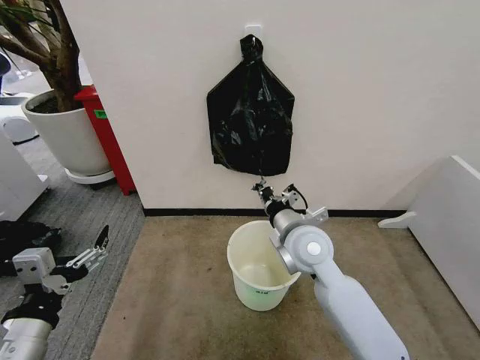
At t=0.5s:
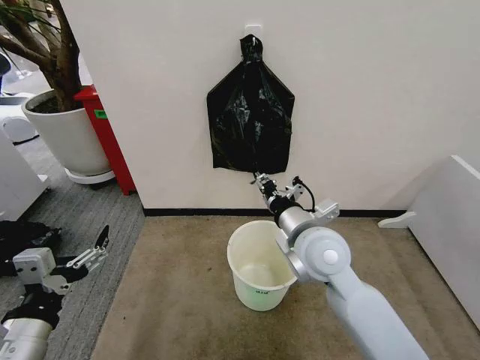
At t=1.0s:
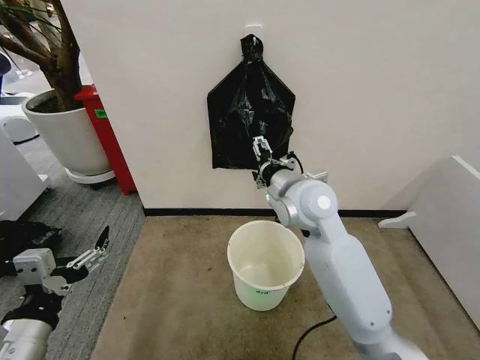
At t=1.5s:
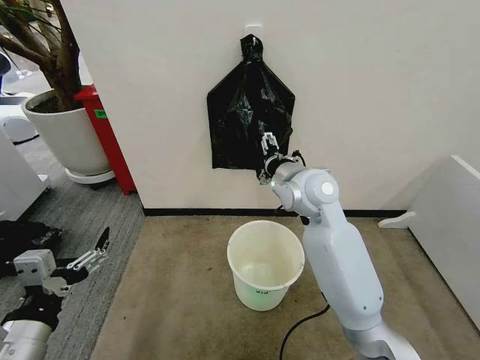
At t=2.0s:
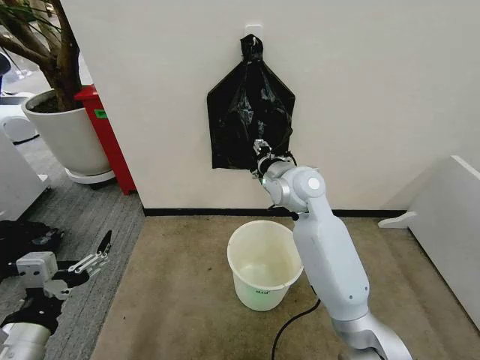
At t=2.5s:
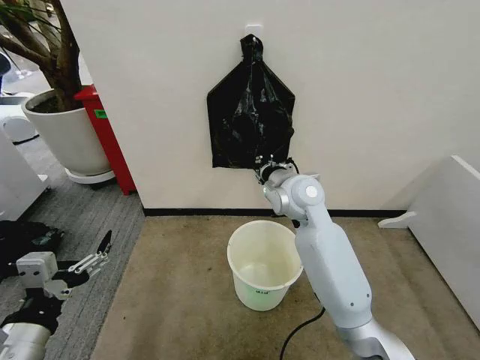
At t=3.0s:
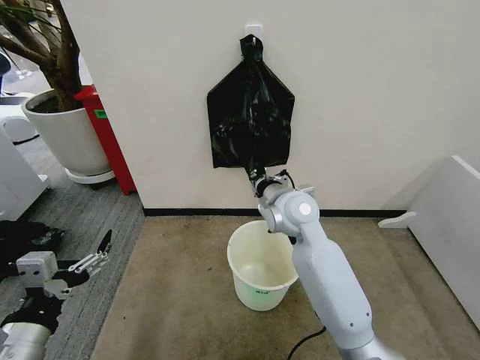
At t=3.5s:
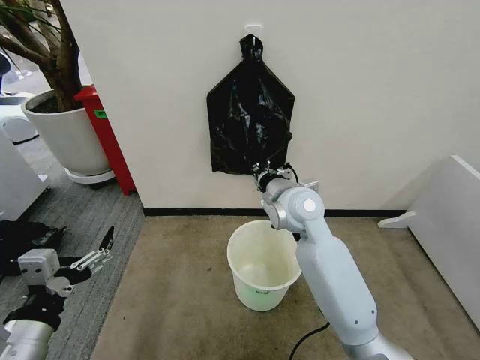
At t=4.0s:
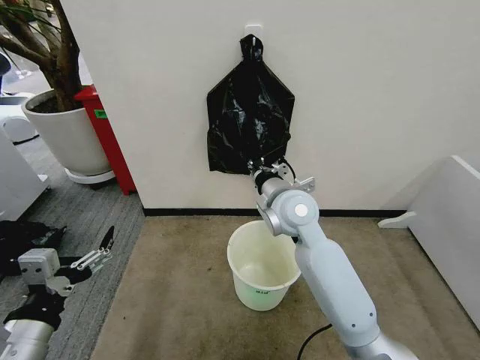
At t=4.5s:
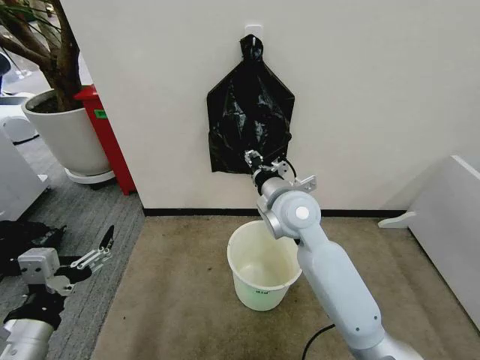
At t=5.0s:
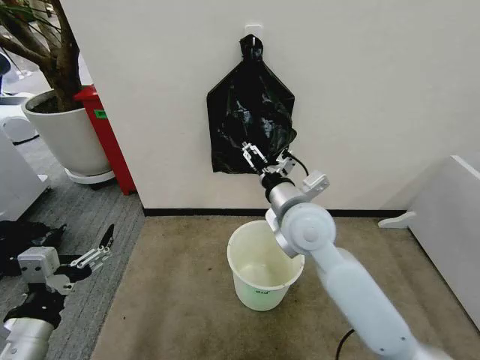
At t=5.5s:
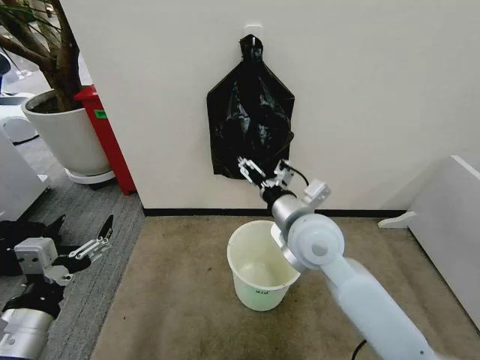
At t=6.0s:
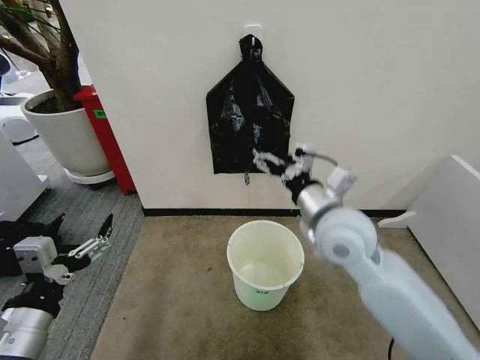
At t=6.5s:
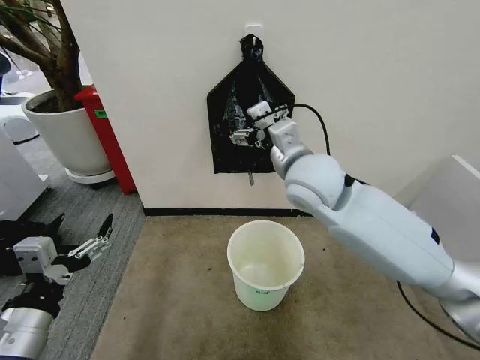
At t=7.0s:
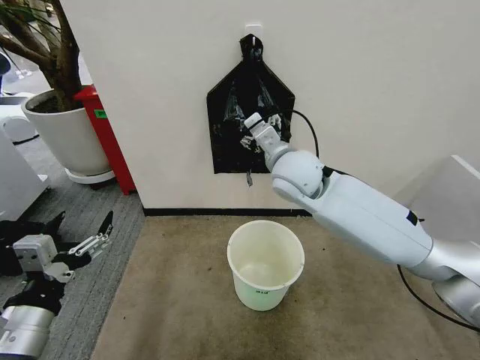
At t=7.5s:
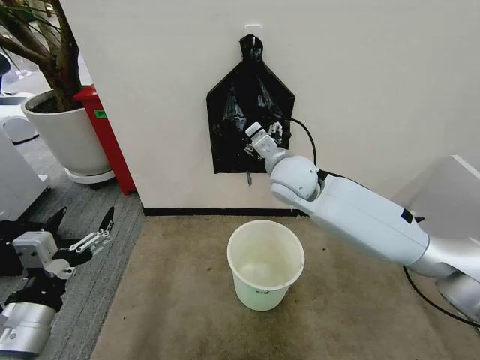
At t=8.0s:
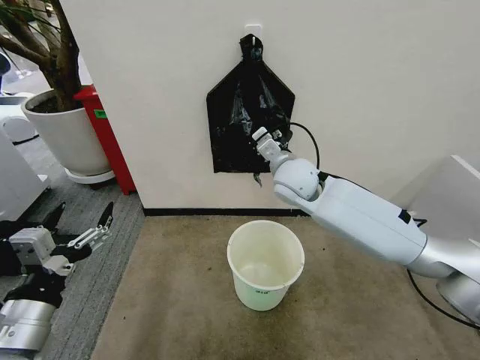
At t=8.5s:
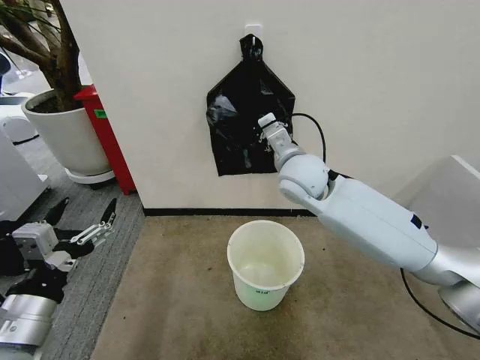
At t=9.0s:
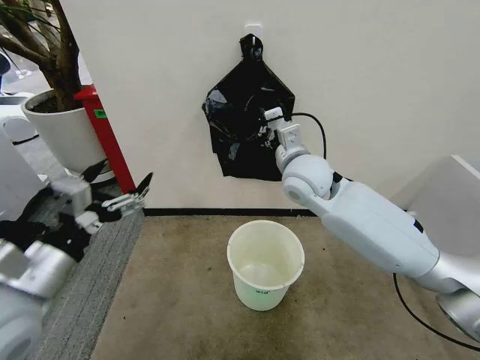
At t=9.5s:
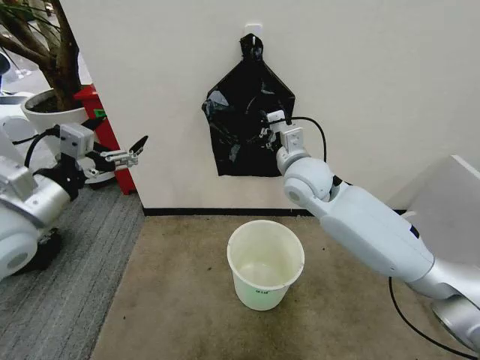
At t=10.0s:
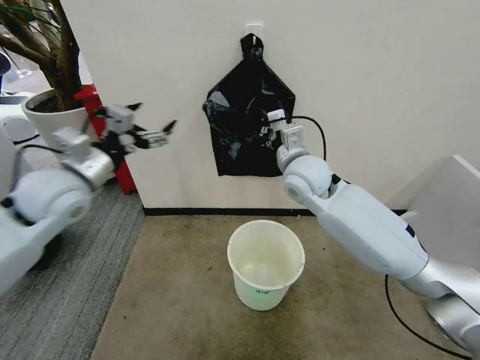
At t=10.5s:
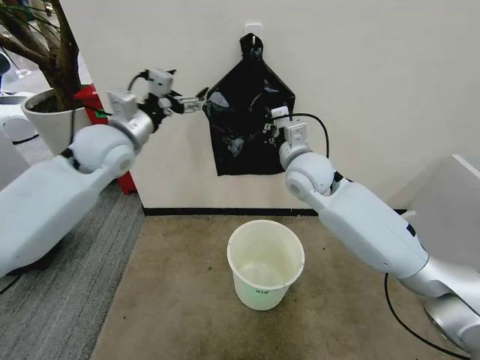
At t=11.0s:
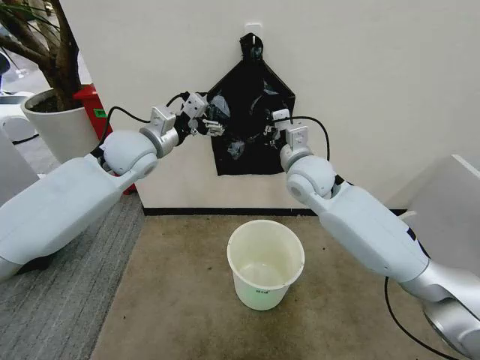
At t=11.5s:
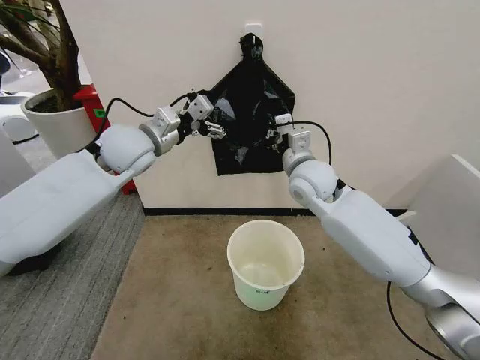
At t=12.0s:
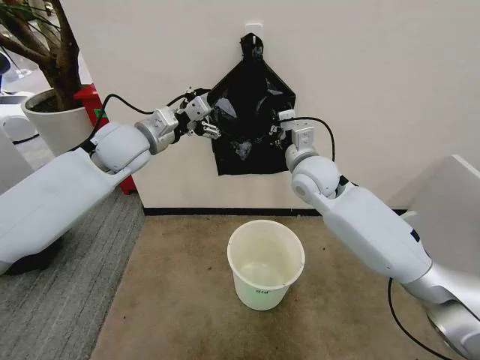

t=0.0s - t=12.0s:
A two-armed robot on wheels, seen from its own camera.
Task of the whole recording: Place the garbage bag over the trash bin.
t=0.0s - t=2.0s: The right gripper travels forward and upward by roughly 10 cm, and opens its fingers.
t=2.0s - t=4.0s: The right gripper changes place by about 5 cm, and closes.
t=4.0s - t=6.0s: The right gripper travels to the right and backward by some 10 cm, and opens.
t=6.0s - t=8.0s: The right gripper shifts some 15 cm forward and to the left, and closes up.
t=8.0s - t=10.0s: The left gripper heads forward, covering approximately 25 cm.
t=10.0s - t=12.0s: The left gripper goes roughly 15 cm forward and to the right.

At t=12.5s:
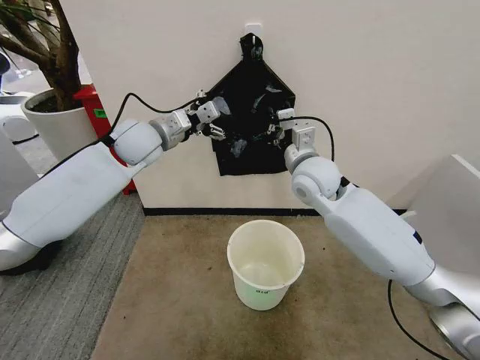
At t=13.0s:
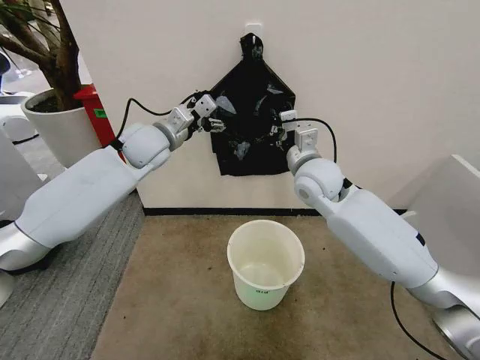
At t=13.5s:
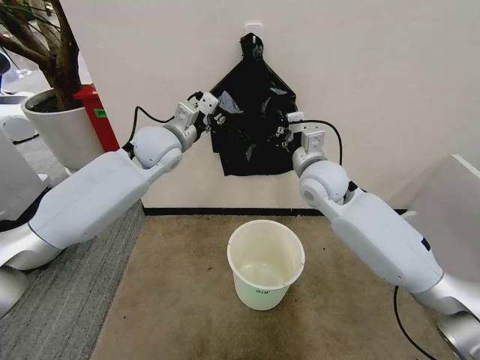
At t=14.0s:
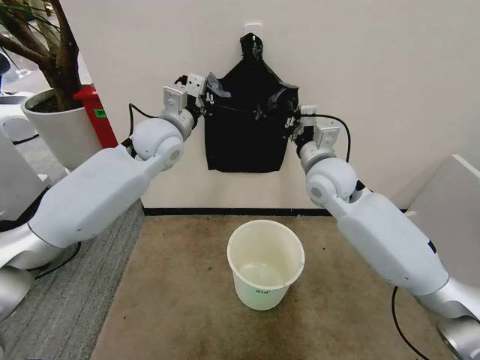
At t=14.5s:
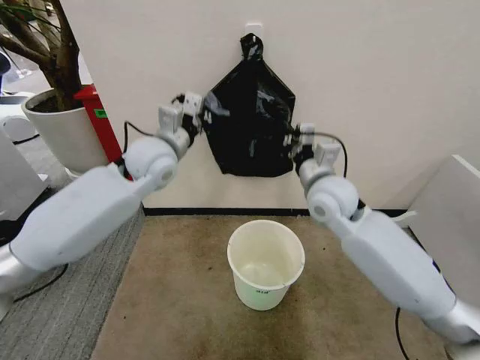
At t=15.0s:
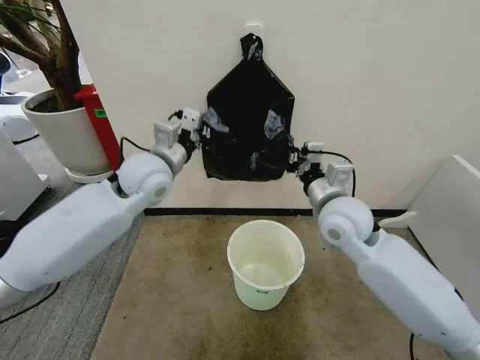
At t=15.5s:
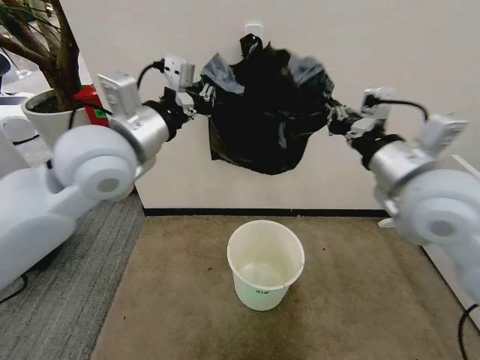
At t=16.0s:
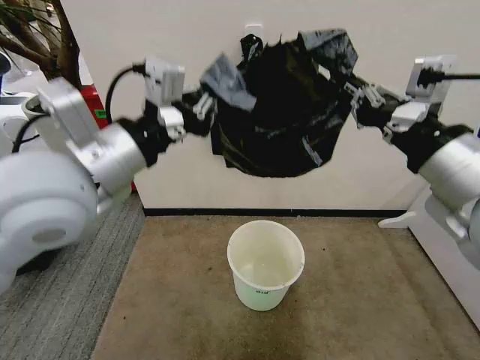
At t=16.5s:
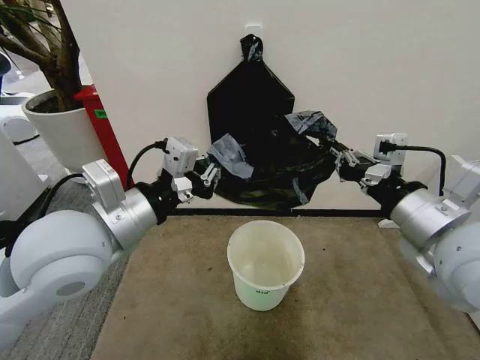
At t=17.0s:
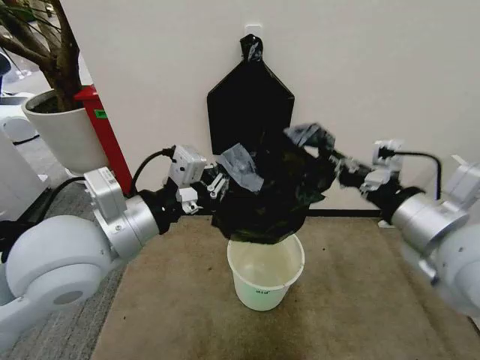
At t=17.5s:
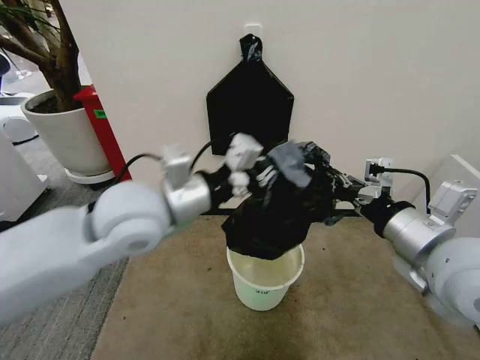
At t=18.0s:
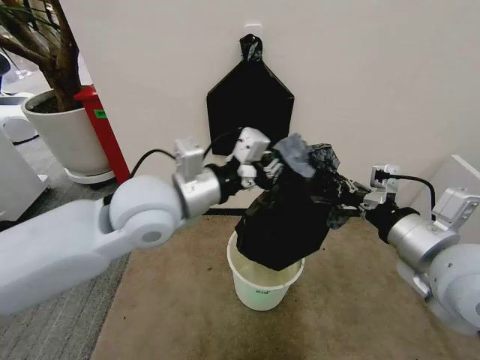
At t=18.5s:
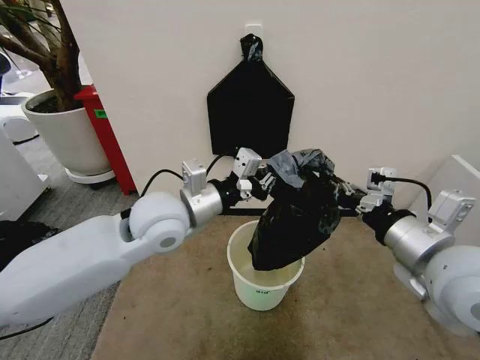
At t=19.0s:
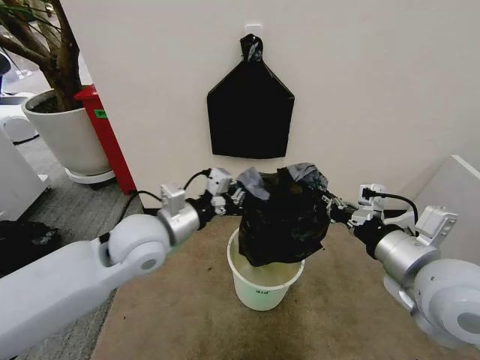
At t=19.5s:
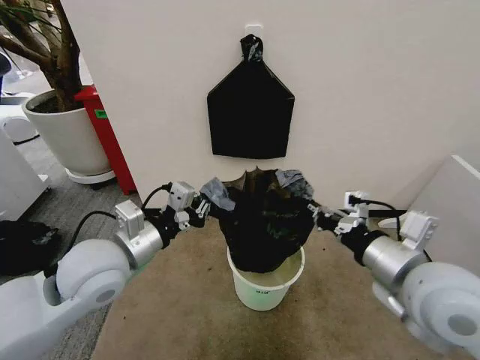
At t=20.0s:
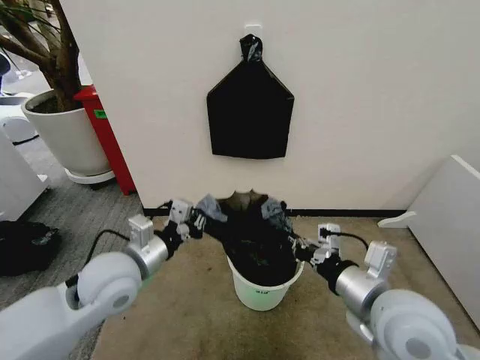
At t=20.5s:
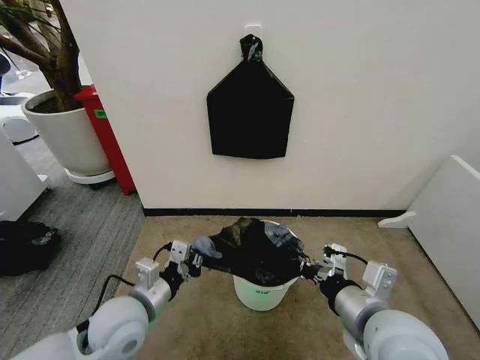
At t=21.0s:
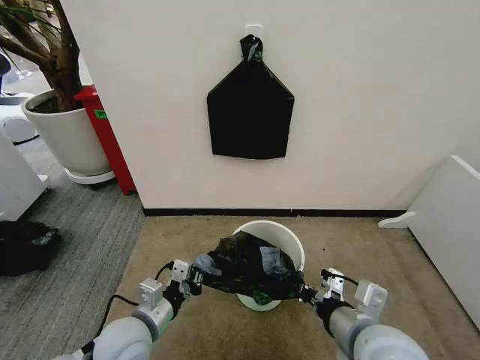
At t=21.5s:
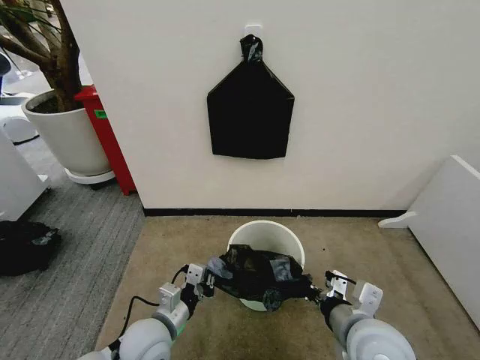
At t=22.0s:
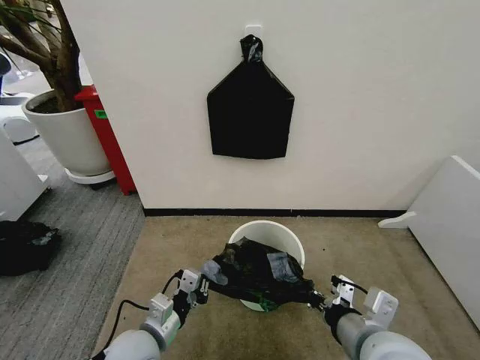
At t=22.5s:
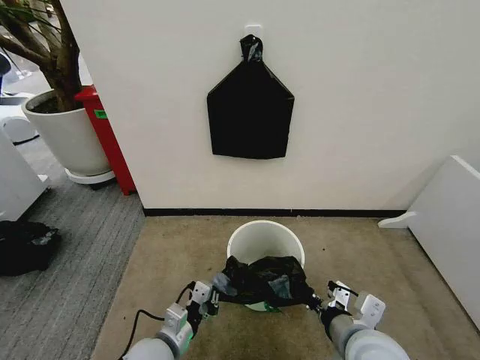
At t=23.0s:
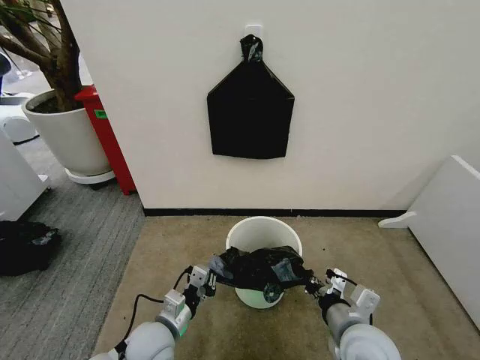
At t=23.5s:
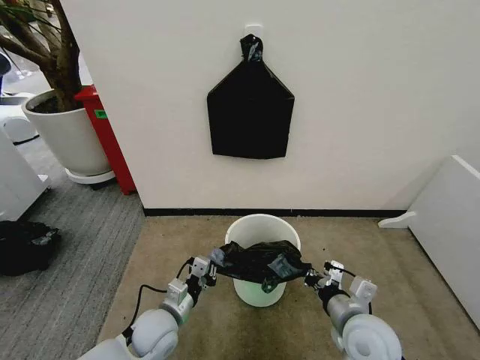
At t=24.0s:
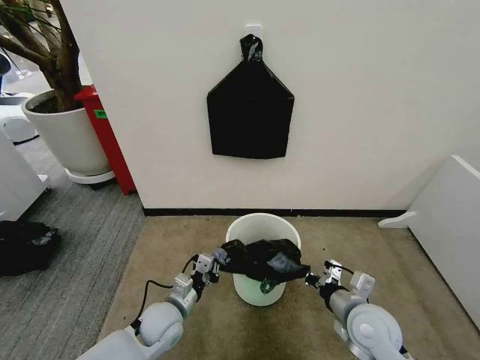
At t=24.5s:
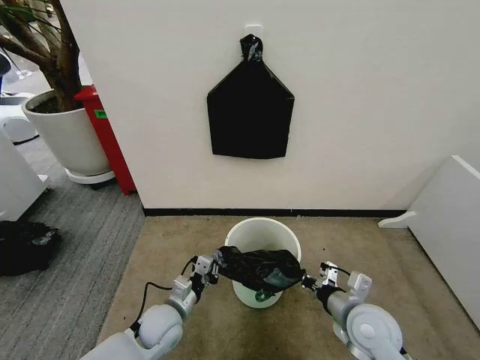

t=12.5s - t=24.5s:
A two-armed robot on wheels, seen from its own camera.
Task of the whole recording: Place the garbage bag over the trash bin.
t=12.5s - t=14.5s: The right gripper shifts by approximately 5 cm. Meanwhile the left gripper shifts about 5 cm backward, and closes up.
t=14.5s - t=16.5s: The left gripper goes roughly 20 cm backward, while the right gripper heads backward, upward and to the right, covering approximately 25 cm.
t=16.5s - t=18.5s: The left gripper moves forward, to the right and downward, approximately 15 cm.
t=18.5s - t=20.5s: The right gripper heads downward and to the left, covering some 10 cm; the left gripper is displaced downward, backward and to the left by about 20 cm.
t=20.5s - t=22.5s: The left gripper goes approximately 10 cm downward. The right gripper goes up and down, about 5 cm each way, reversing 2 times.
t=22.5s - t=24.5s: The left gripper moves forward, approximately 10 cm. The right gripper goes some 10 cm downward and forward.

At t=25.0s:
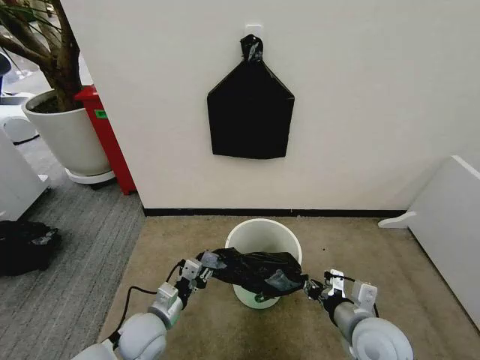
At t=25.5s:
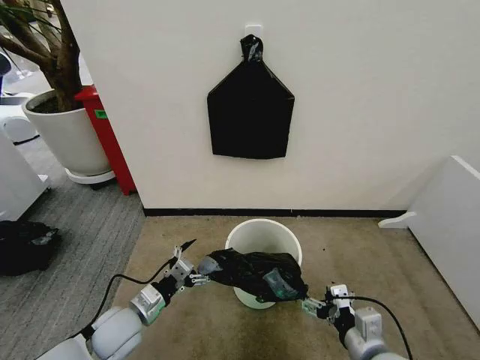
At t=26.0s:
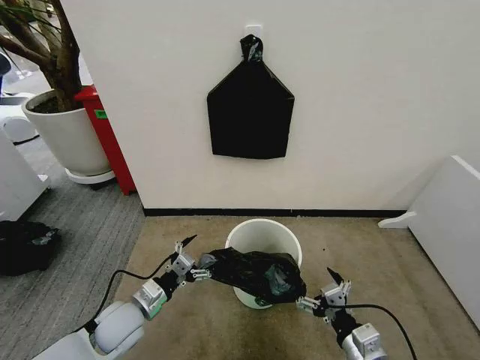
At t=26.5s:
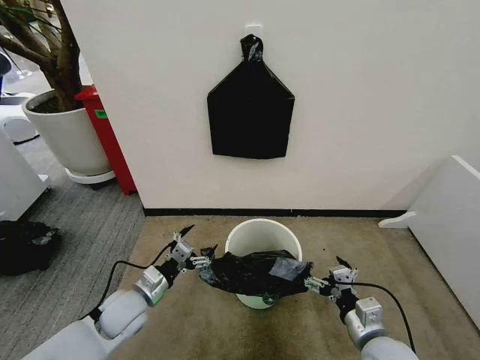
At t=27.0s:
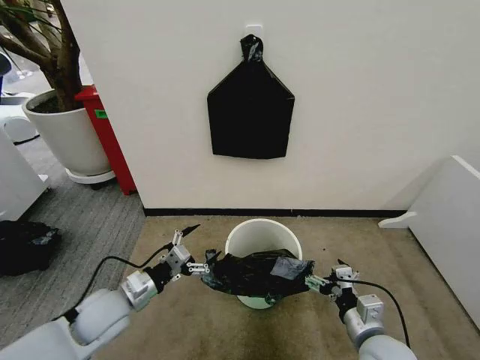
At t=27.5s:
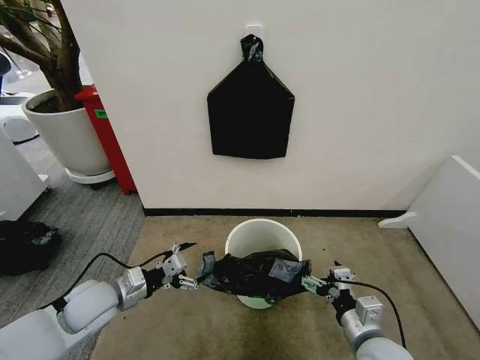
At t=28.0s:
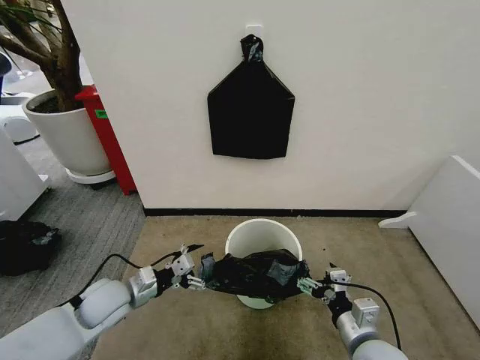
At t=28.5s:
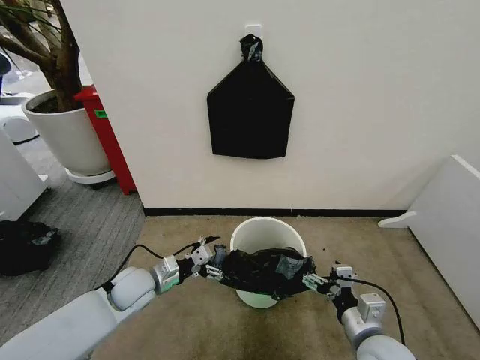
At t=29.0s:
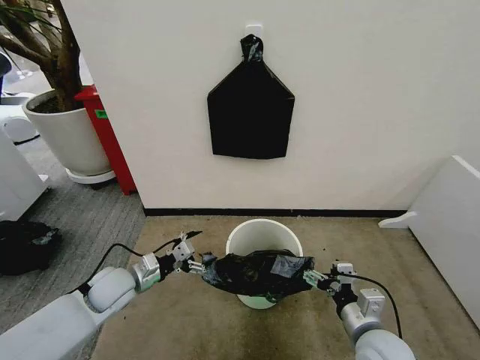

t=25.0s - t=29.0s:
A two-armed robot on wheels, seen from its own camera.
Task of the whole recording: Place the garbage bag over the trash bin.
t=25.0s - t=27.0s: The left gripper heads upward and to the left, covering roughly 10 cm, and opens its fingers, while the right gripper opens.
t=27.0s - t=29.0s: The left gripper travels forward by approximately 5 cm.
